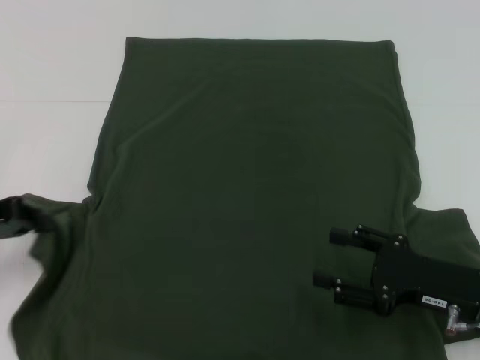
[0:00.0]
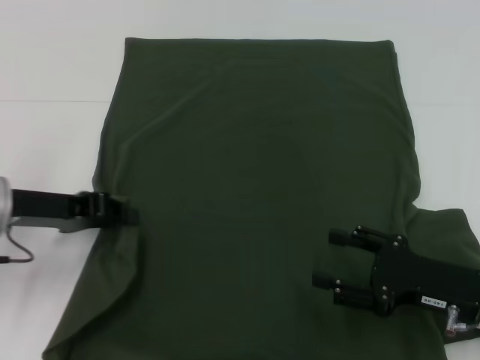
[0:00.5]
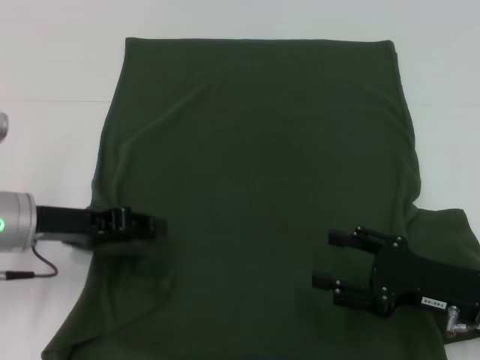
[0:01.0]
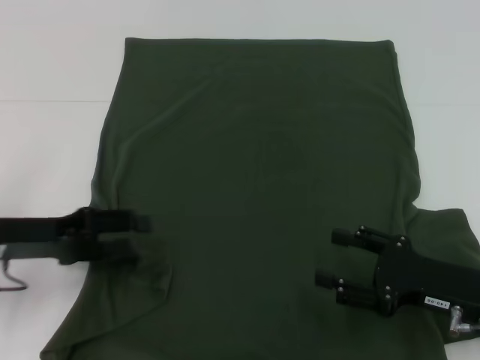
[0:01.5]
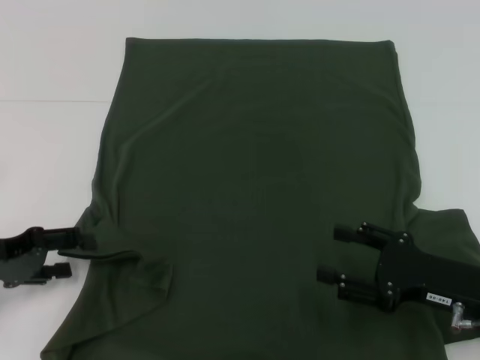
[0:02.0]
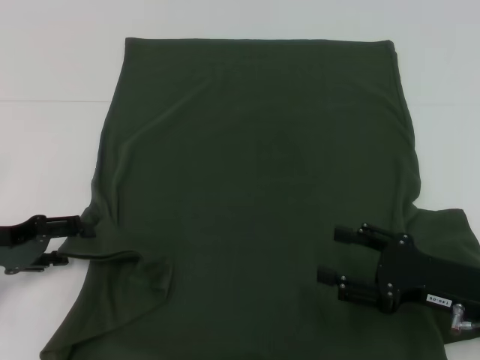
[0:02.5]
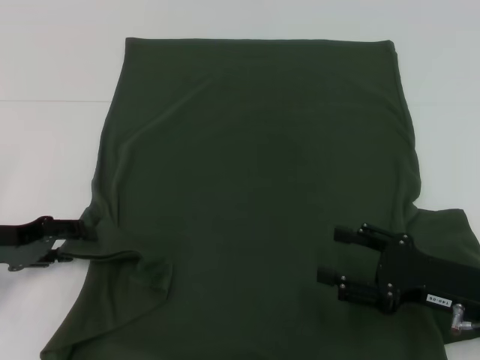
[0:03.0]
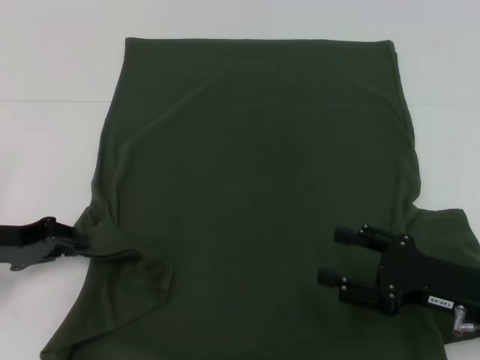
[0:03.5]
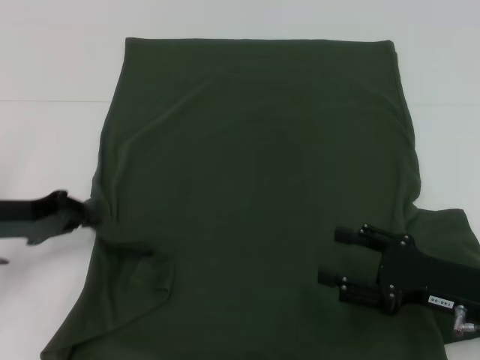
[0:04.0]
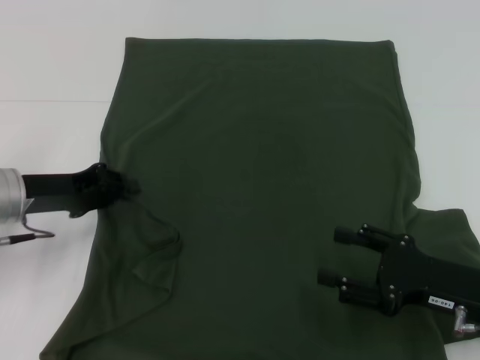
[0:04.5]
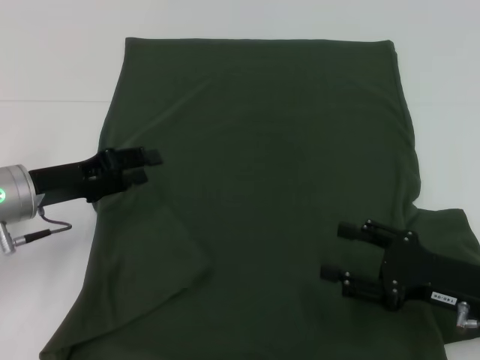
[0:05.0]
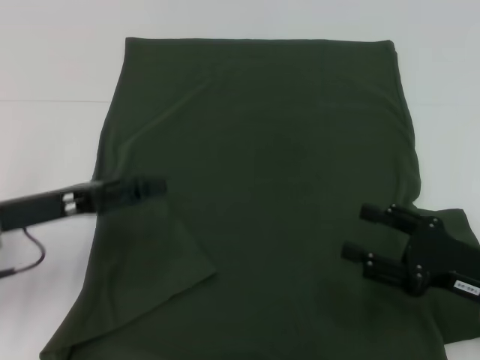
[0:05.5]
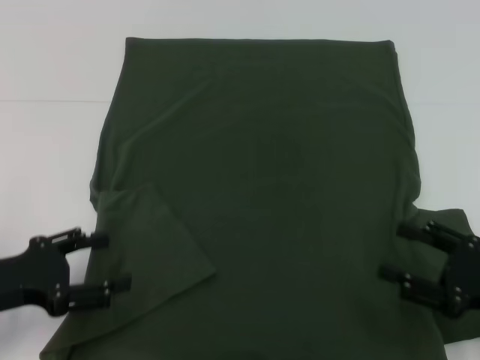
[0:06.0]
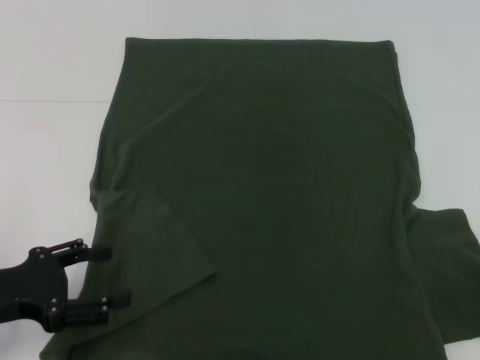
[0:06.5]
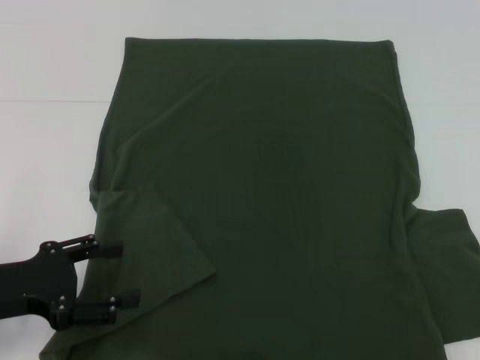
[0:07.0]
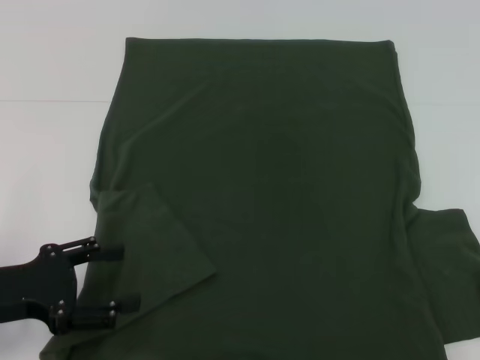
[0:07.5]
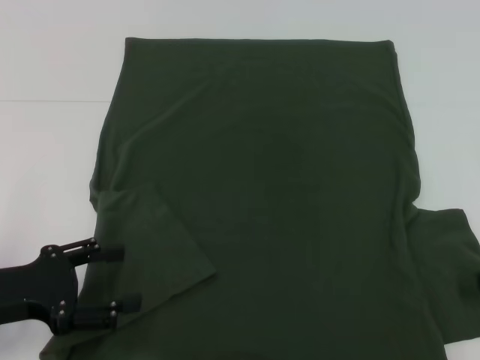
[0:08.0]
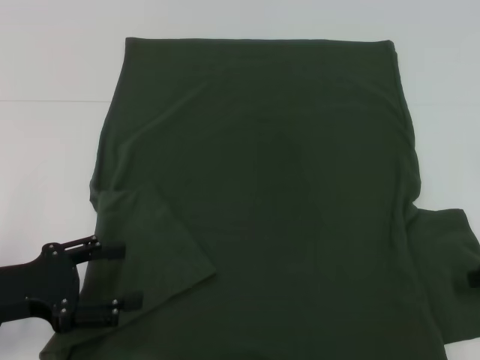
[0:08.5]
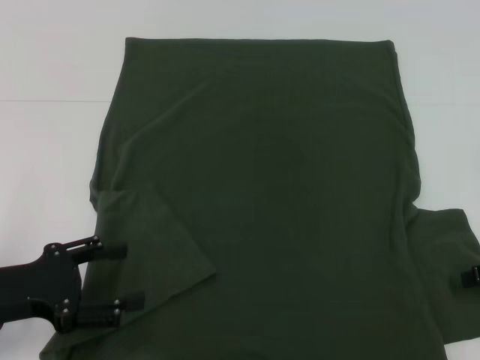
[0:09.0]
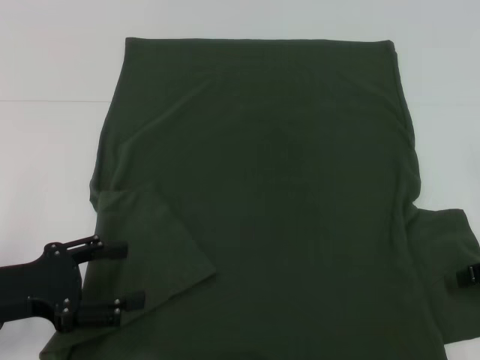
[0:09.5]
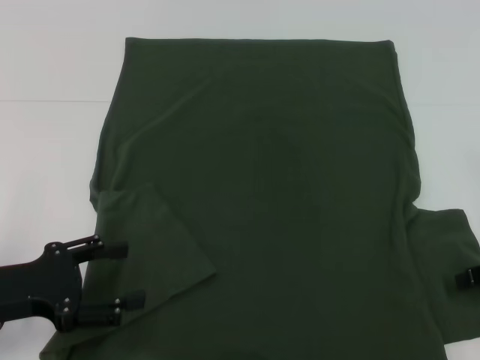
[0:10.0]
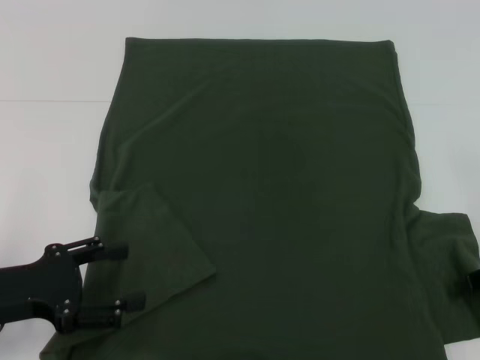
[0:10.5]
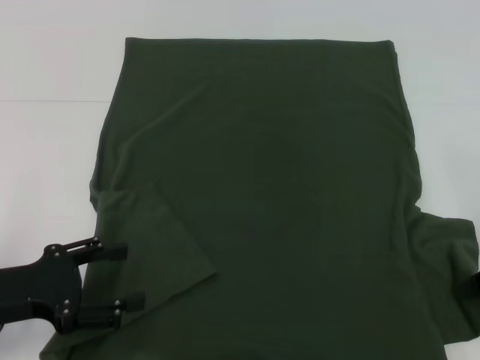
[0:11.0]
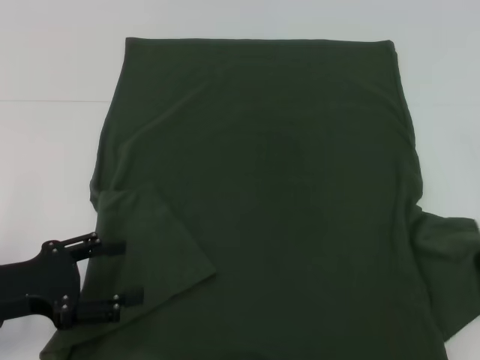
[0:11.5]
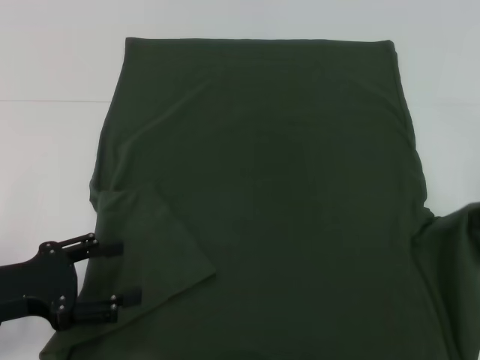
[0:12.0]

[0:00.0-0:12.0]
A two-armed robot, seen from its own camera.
Step, 0:00.0 to 0:05.0: Fold the bottom left sleeve with your left hand.
0:00.0 to 0:02.0: The left gripper reaches about 10 cm to the right, then returns, and opens.
0:02.0 to 0:04.0: The left gripper closes its fingers.
0:04.0 to 0:06.0: The left gripper heads backward, covering roughly 10 cm, and opens its fingers; the right gripper ends up approximately 5 cm from where it was.
0:06.0 to 0:08.0: The right gripper is displaced to the right, forward and upward by approximately 10 cm.
0:08.0 to 0:10.0: There are only small adjustments of the grippers.
0:10.0 to 0:12.0: The right gripper is displaced upward by about 5 cm, and closes its fingers.

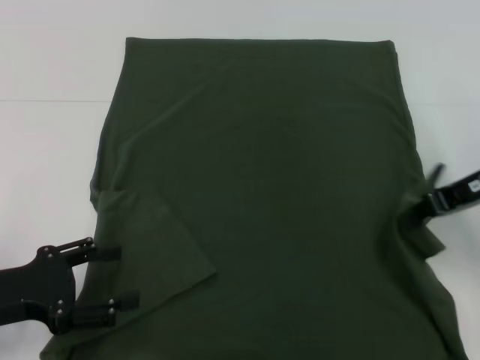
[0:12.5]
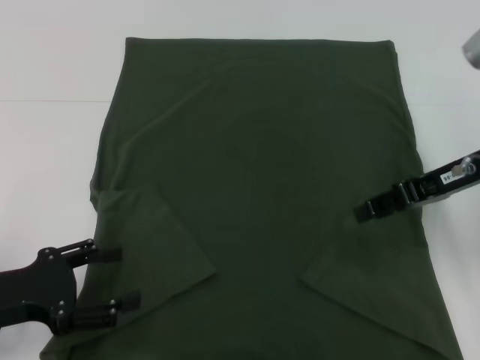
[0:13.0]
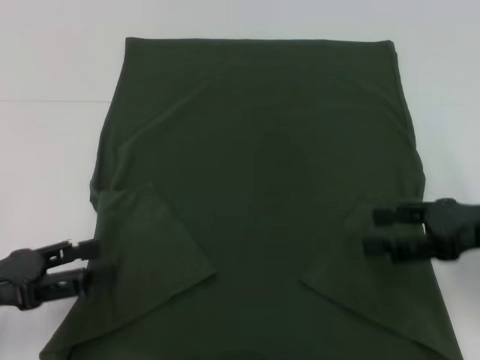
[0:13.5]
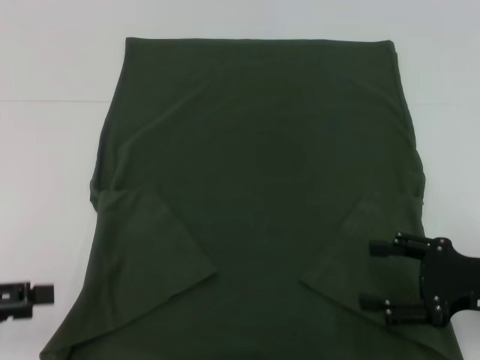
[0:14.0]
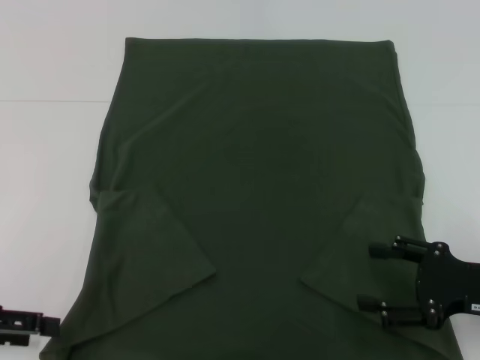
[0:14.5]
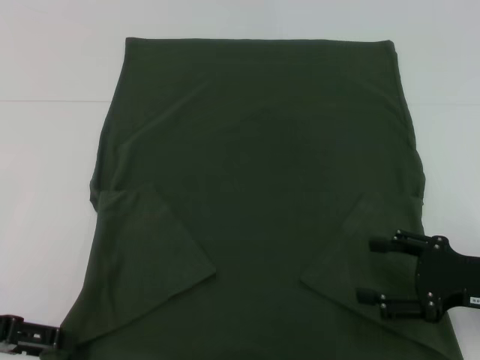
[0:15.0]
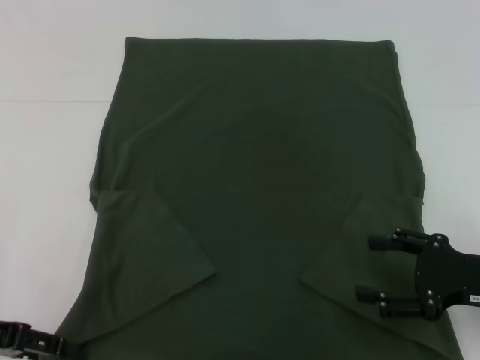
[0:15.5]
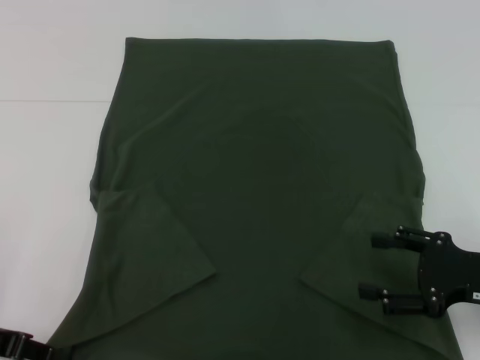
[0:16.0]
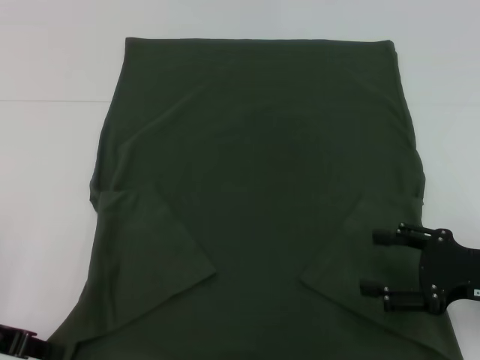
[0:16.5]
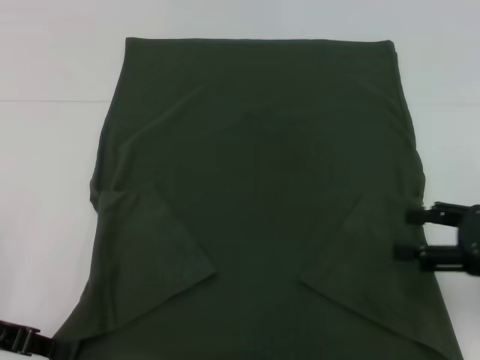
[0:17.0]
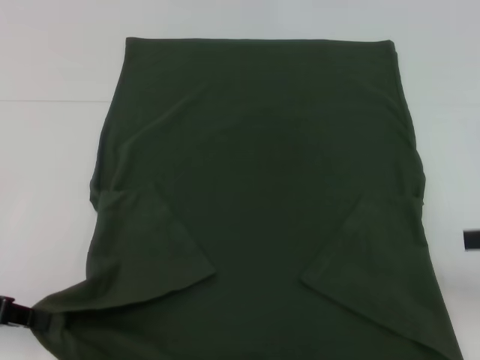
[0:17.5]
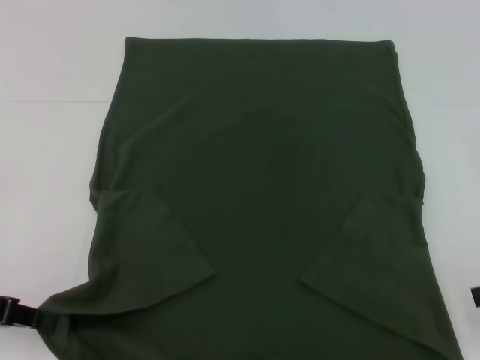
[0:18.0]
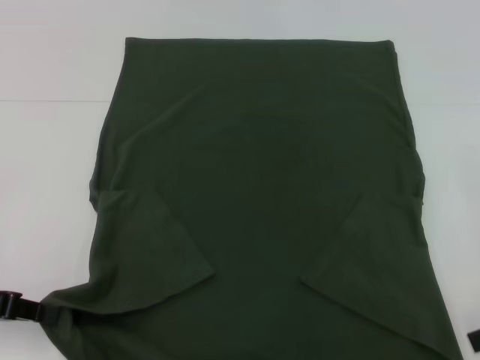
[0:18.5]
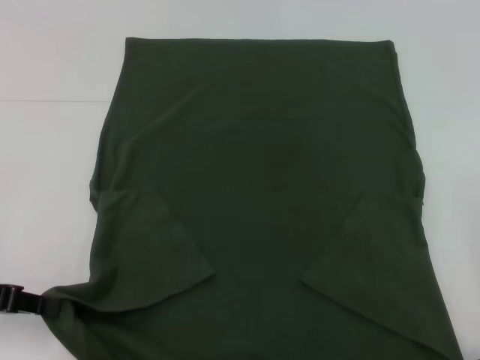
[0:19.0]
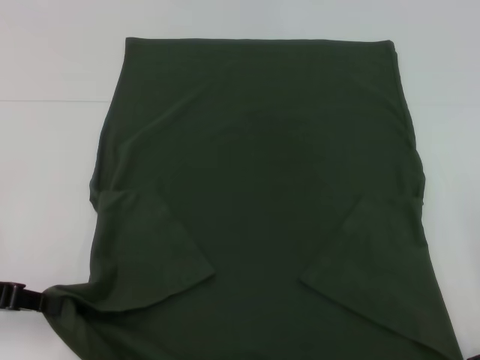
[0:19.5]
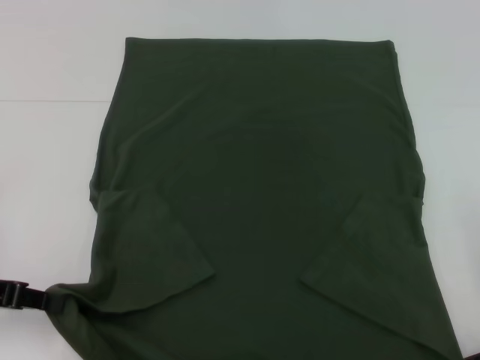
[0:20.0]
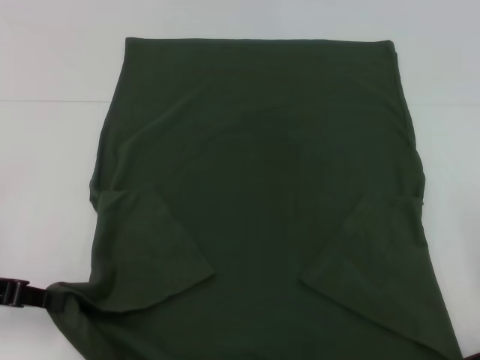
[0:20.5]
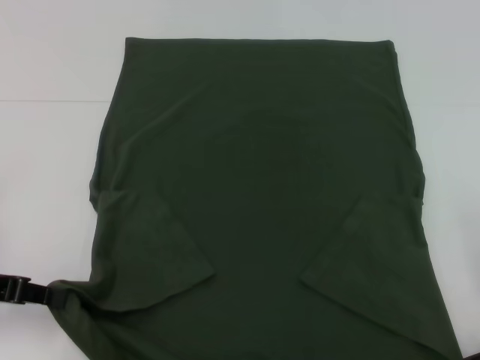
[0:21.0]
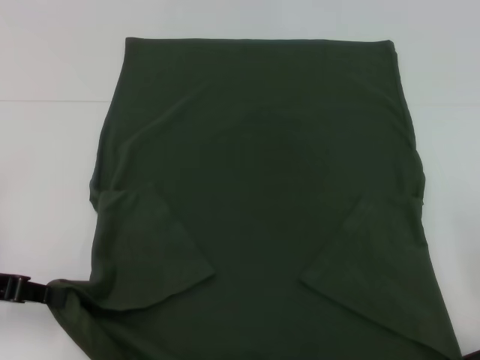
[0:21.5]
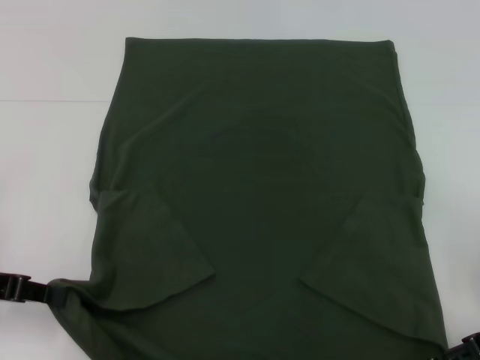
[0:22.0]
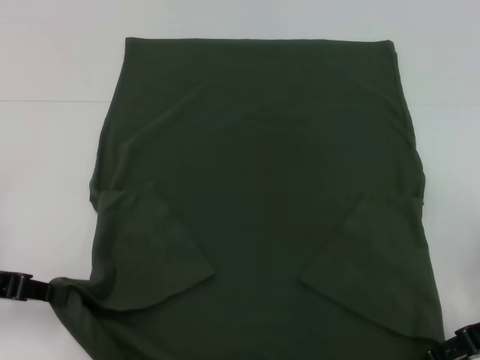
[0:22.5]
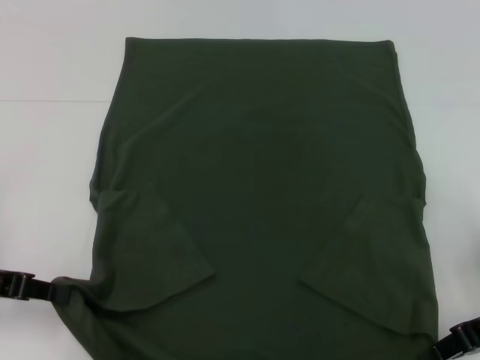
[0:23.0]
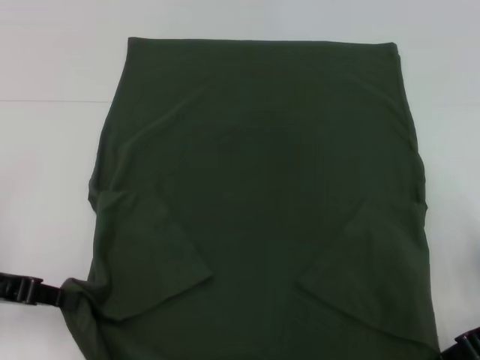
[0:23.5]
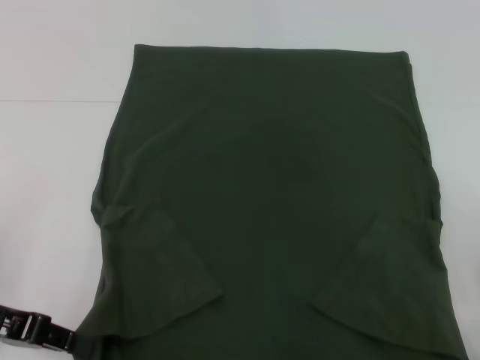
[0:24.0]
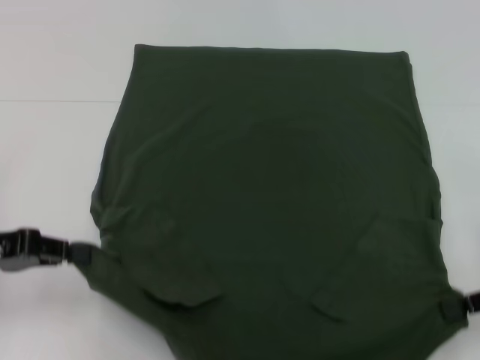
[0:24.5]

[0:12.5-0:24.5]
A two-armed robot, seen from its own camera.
Step, 0:13.0 to 0:16.0: Grab the bottom left corner with your left hand.
Step, 0:16.5 to 0:23.0: Grab the bottom right corner with your right hand.
0:12.5 to 0:14.5: The right gripper travels backward and downward by some 15 cm, and opens, while the left gripper heads to the left, covering roughly 5 cm.
0:14.5 to 0:16.5: The left gripper closes its fingers.
0:16.5 to 0:18.5: The right gripper heads to the right and upward, covering some 10 cm.
0:18.5 to 0:20.5: The grippers stay close to where they were, moving slightly.
0:20.5 to 0:22.5: There are only small adjustments of the grippers.
0:22.5 to 0:24.5: The right gripper closes.

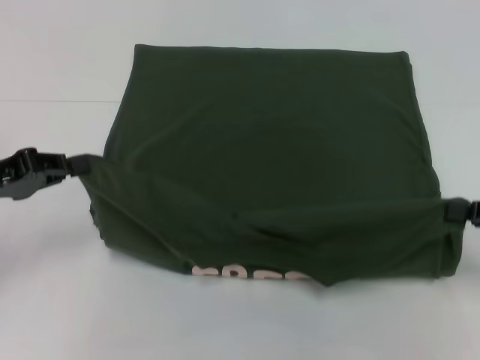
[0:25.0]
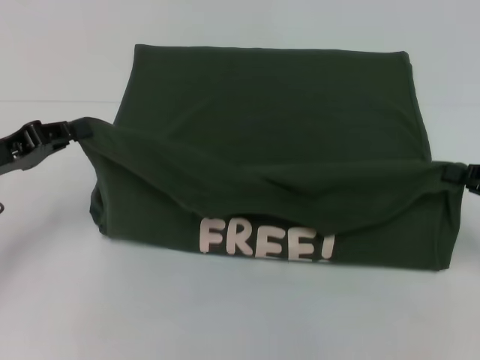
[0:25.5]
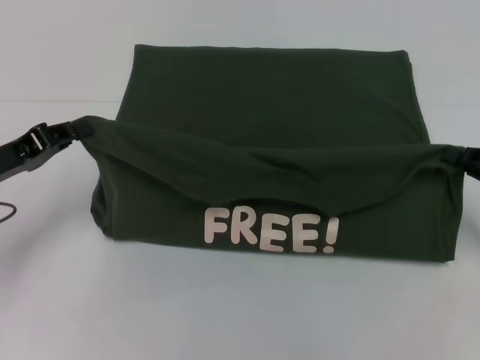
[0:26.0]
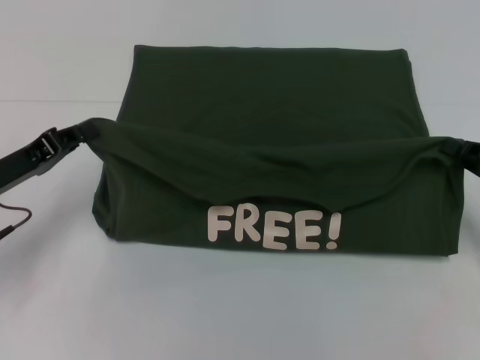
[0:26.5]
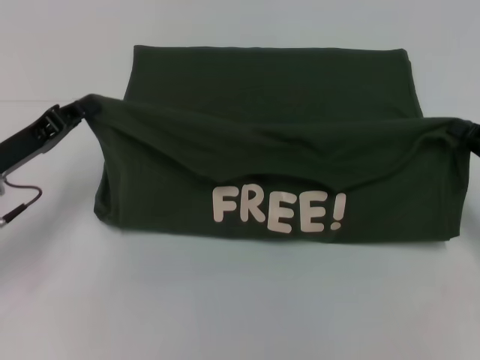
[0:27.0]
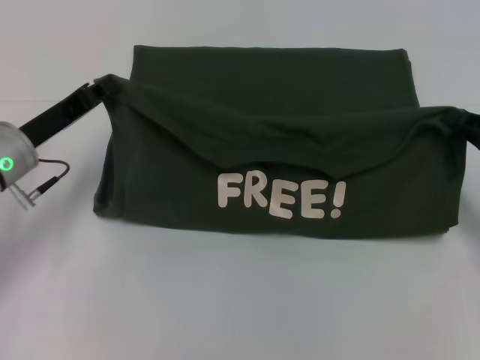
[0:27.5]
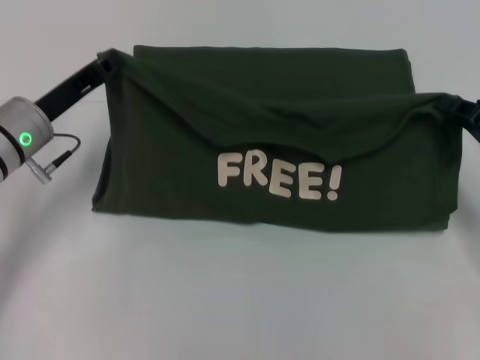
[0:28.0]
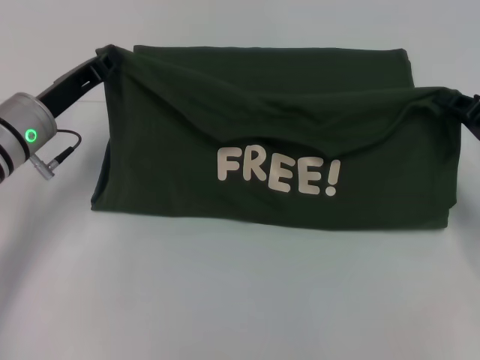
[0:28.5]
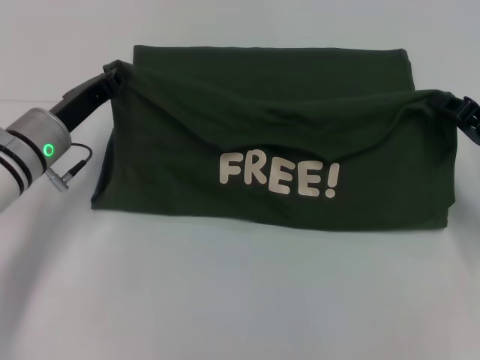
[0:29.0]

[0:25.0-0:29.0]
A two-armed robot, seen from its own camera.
0:25.0 to 0:27.0: The left gripper moves roughly 5 cm.
0:27.0 to 0:29.0: The right gripper moves roughly 5 cm. The left gripper shifts some 10 cm to the right and forward.
